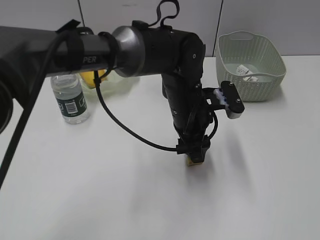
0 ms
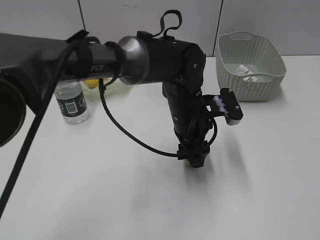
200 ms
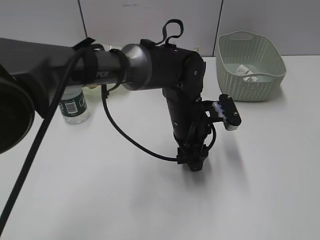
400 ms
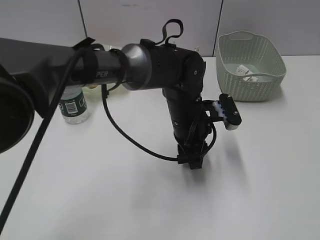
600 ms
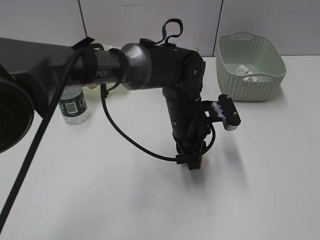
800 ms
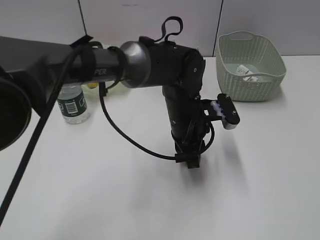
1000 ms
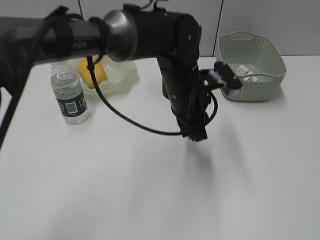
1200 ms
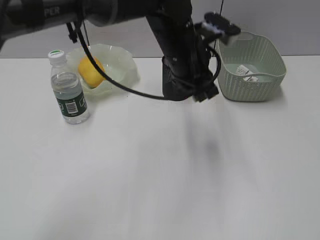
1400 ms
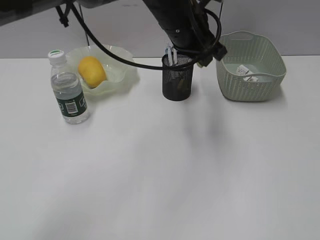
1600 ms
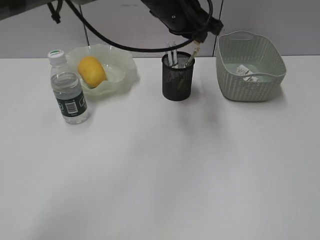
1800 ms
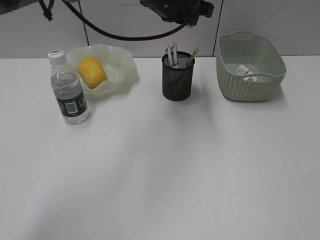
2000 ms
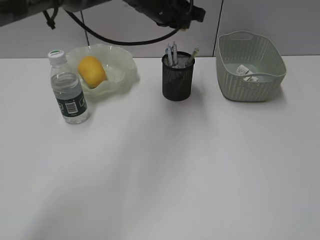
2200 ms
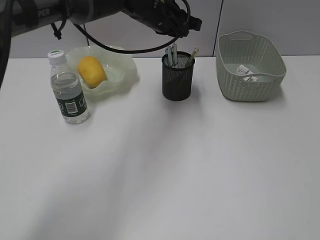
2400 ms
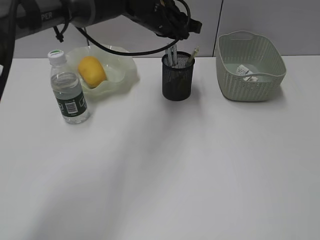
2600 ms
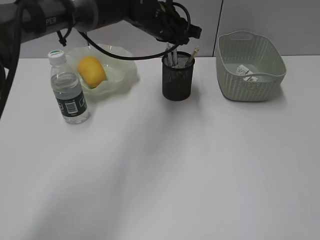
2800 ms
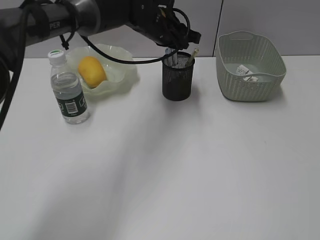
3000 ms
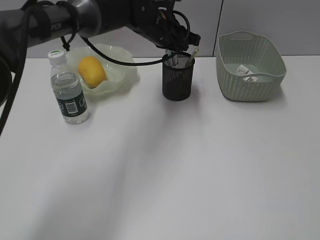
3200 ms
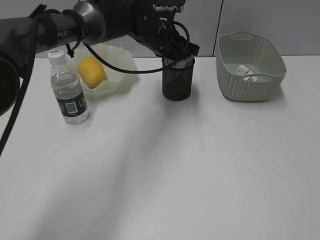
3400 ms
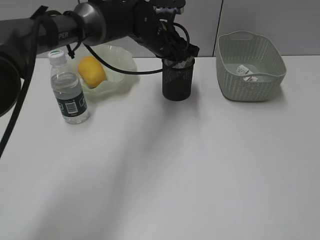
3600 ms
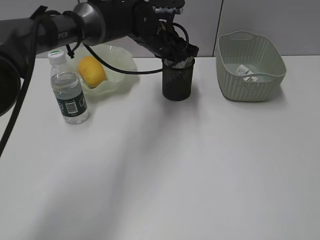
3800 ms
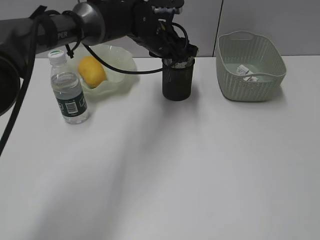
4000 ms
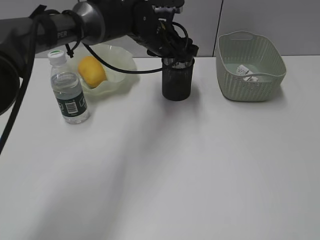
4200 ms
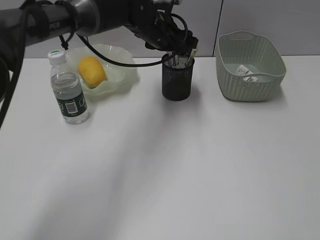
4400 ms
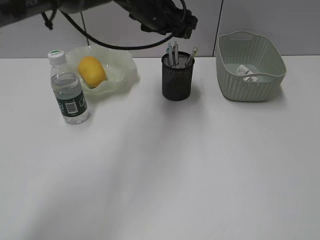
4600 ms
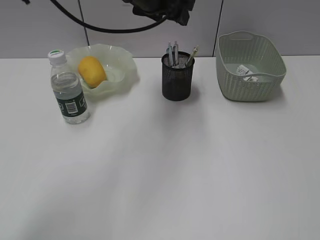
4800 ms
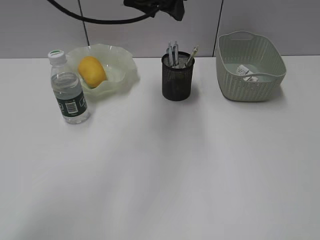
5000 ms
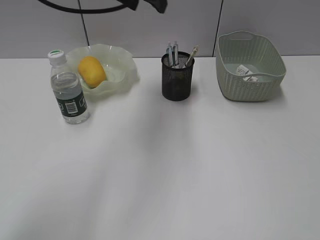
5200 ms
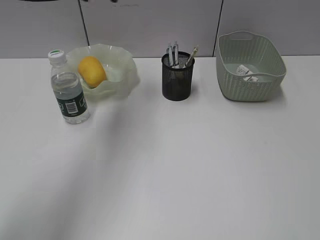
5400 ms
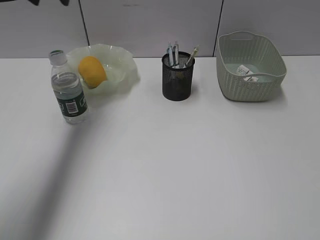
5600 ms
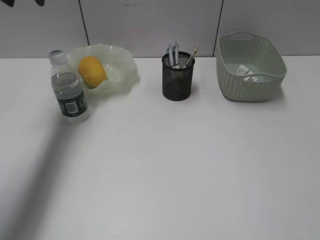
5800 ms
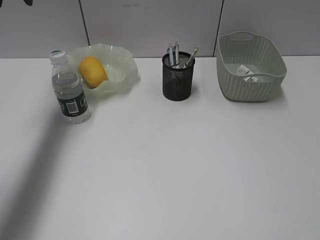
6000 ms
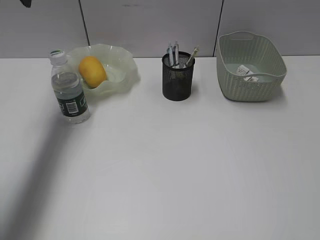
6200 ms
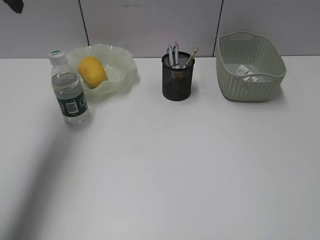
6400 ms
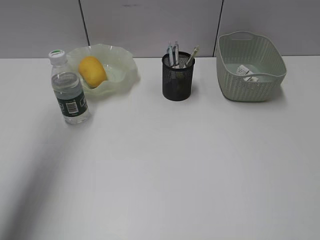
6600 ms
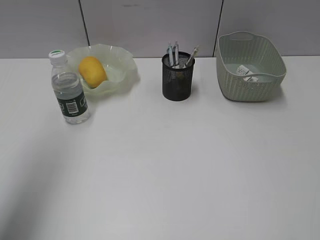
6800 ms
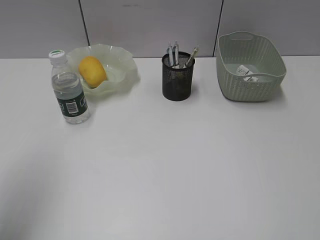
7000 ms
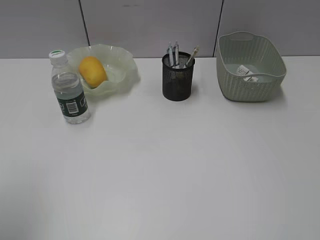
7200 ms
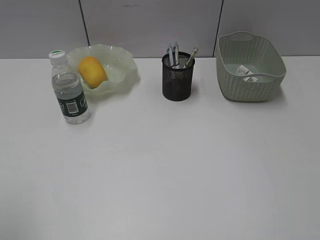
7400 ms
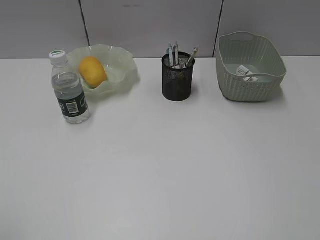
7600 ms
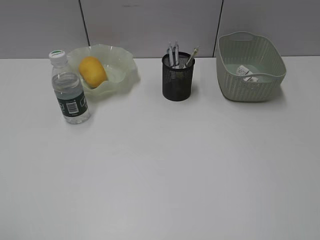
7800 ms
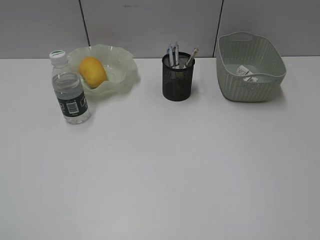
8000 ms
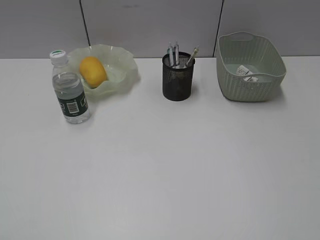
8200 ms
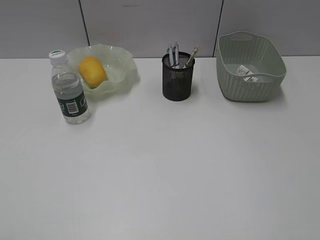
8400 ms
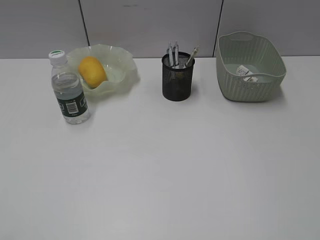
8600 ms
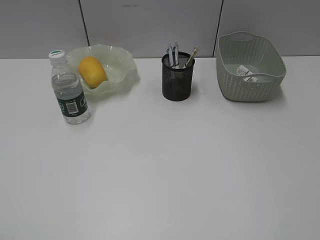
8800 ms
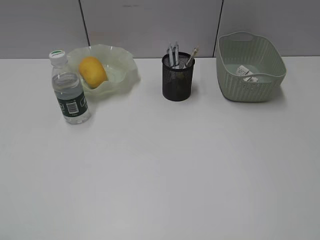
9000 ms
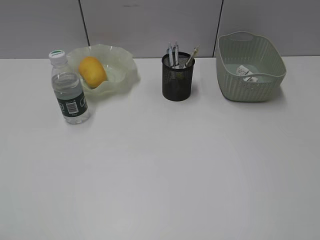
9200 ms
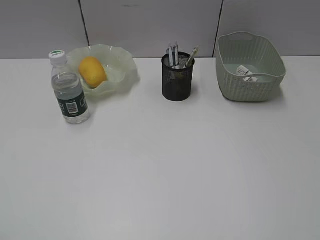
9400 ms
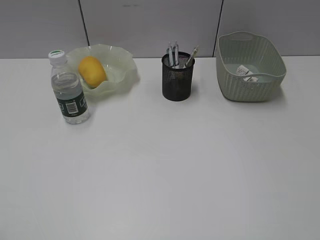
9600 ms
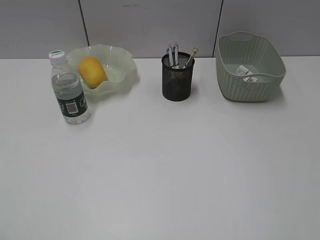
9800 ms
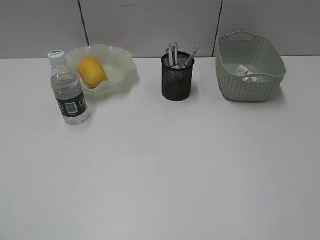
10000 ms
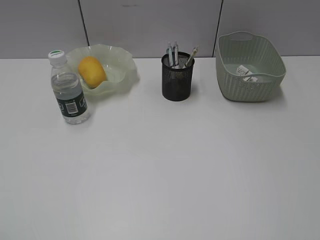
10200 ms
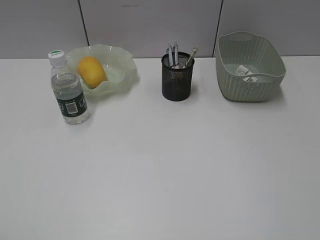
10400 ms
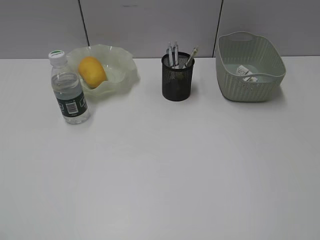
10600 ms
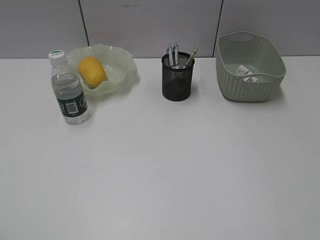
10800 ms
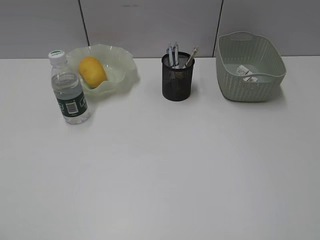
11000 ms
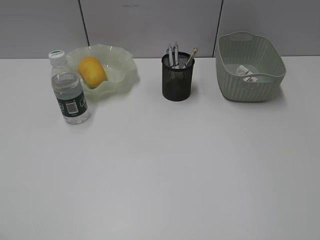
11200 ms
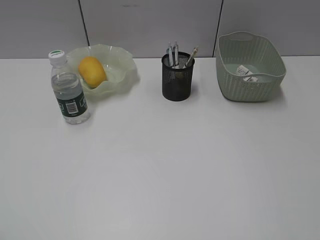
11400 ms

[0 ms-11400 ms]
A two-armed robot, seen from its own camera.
Step, 1000 ms to 4000 ms: Place the eraser in pen holder with left gripper.
0 ms to 1400 ms: The left gripper travels upward by about 10 cm, and closes.
1400 ms to 2800 ms: The left gripper heads forward, covering some 10 cm.
2800 ms to 4200 ms: The left gripper opens its fingers.
4200 ms to 5600 ms: The left gripper is displaced to the left and upward by about 25 cm.
5600 ms to 7200 ms: The left gripper shifts approximately 30 cm backward.
7200 ms to 8600 ms: The left gripper moves backward and downward, some 15 cm.
10000 ms to 11400 ms: The two grippers keep their place.

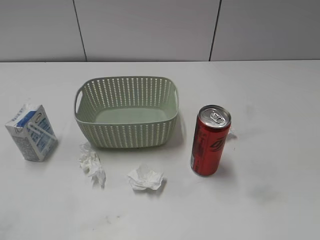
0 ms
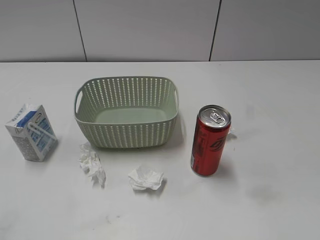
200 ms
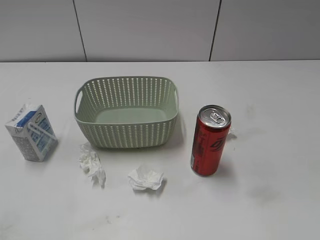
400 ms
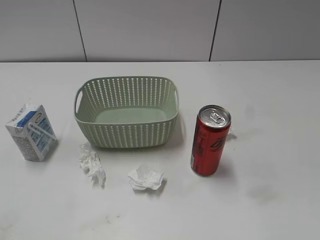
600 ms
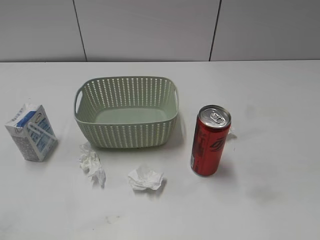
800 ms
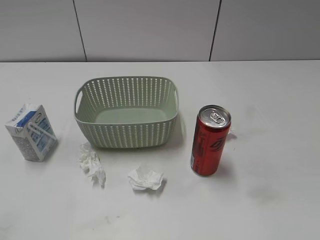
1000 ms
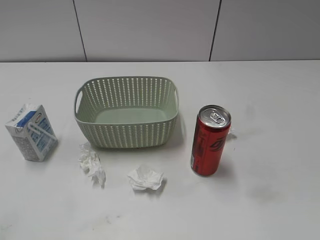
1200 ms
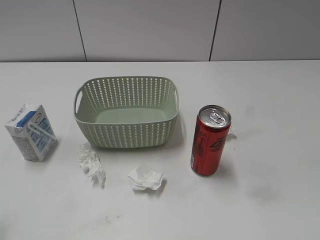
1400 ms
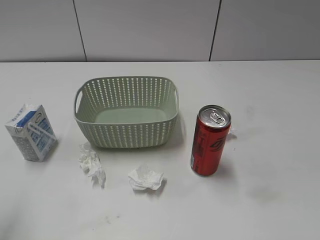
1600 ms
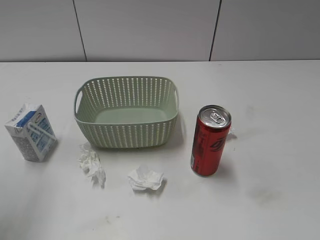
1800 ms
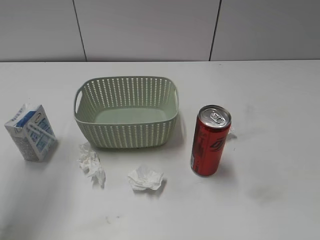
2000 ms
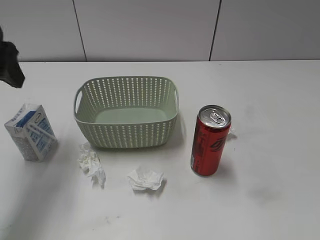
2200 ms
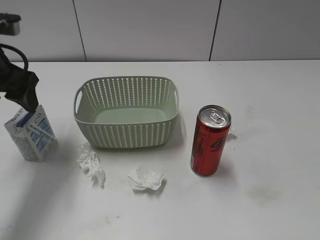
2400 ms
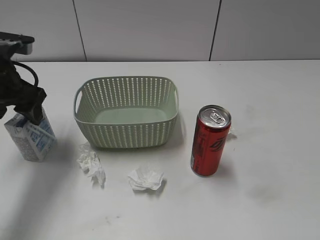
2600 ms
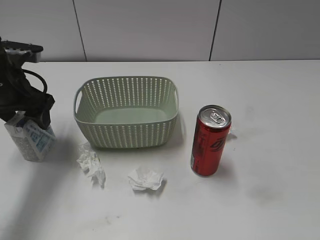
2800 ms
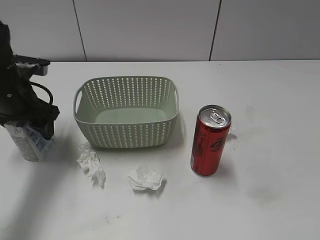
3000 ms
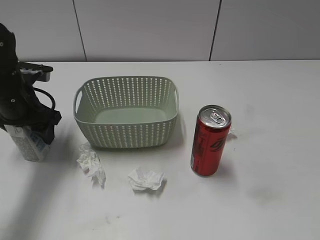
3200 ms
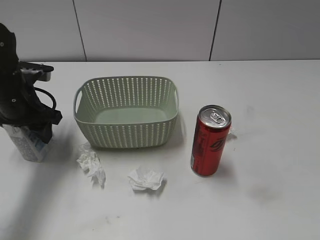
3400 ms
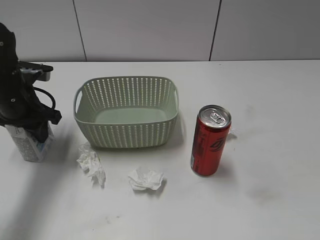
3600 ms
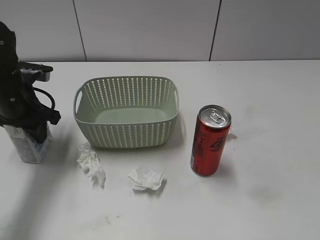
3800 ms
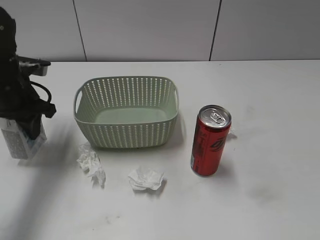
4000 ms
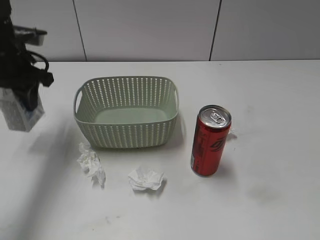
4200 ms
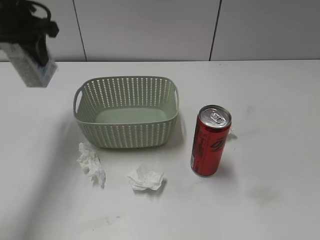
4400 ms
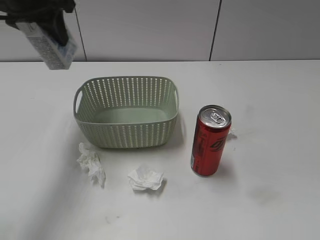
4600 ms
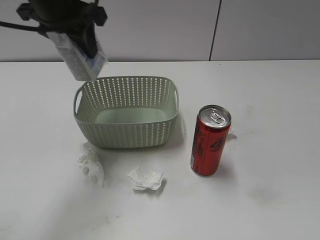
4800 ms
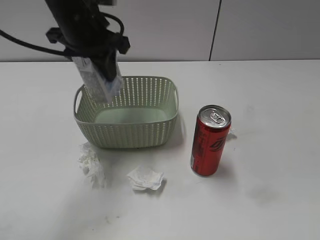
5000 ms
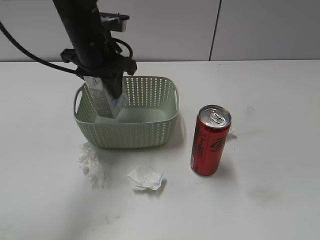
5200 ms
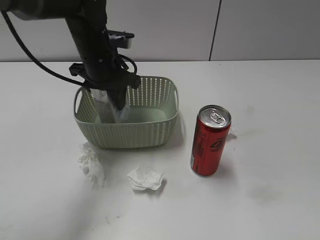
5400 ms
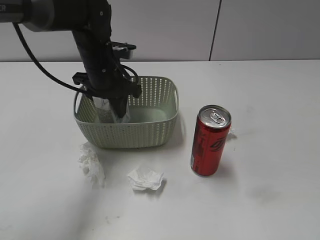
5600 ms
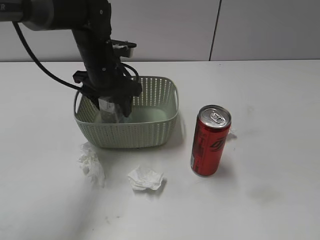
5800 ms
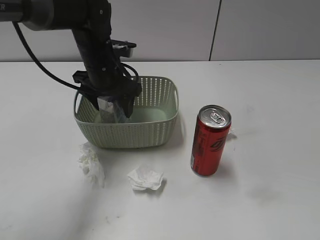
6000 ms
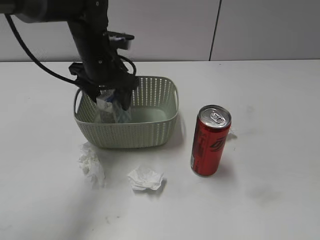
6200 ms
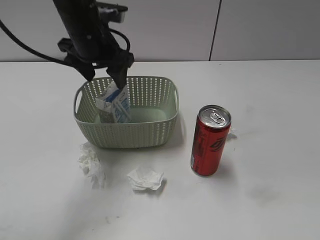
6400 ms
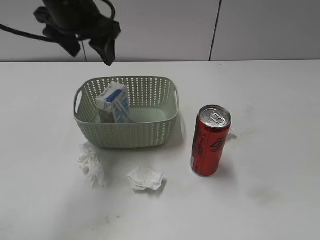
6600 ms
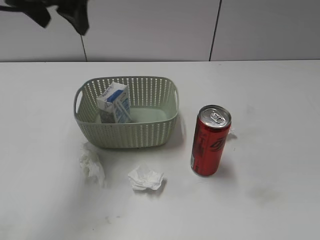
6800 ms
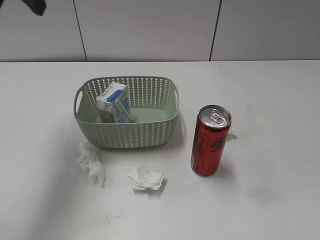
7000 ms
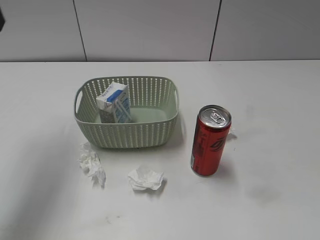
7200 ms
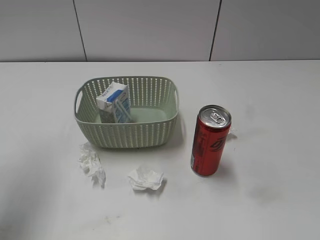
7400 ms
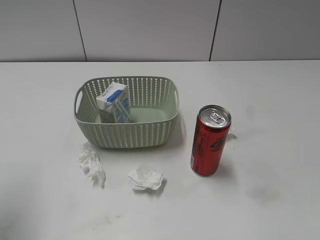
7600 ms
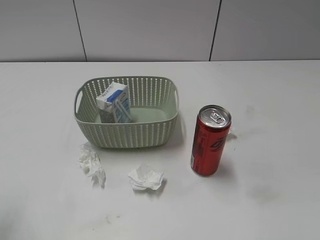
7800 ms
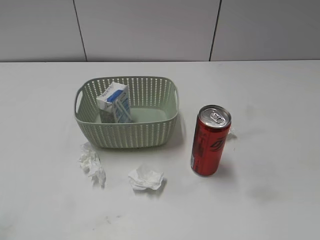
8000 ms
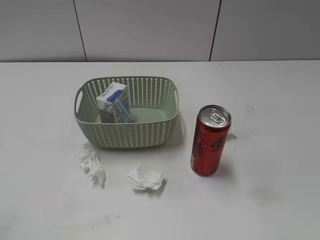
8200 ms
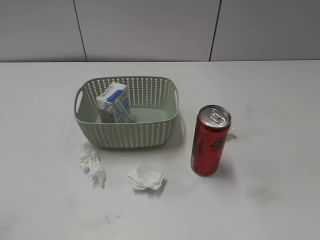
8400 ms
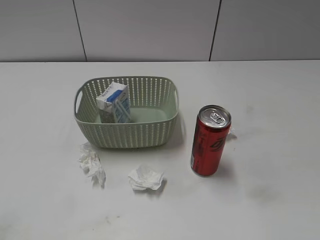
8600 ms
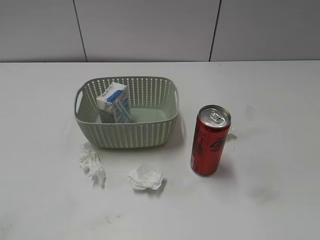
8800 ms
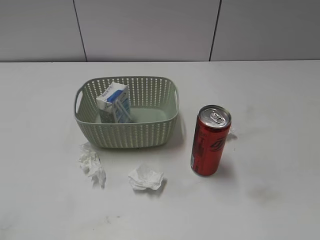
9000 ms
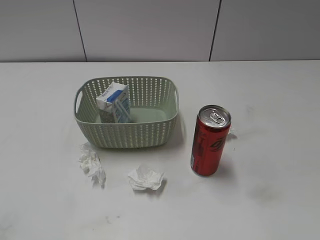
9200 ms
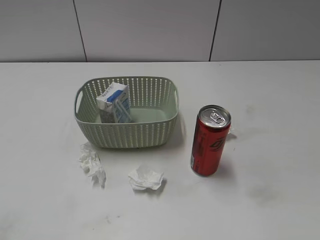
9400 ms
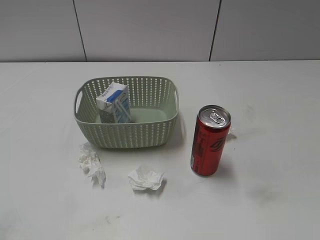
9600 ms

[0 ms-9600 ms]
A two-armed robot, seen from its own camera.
Step, 2200 ms to 3600 ms: Grasp the milk with left gripper.
Step, 3800 ms to 6600 ms: Place the milk in the basket with left gripper.
1600 ms to 3200 ms: The left gripper is displaced forward and downward by about 30 cm.
3200 ms to 4800 ms: The left gripper moves upward and to the right, about 20 cm, and closes up.
4800 ms to 6400 ms: The left gripper travels downward and to the right by approximately 15 cm, and opens.
6400 ms to 8000 ms: The left gripper heads backward and to the left, covering approximately 35 cm.
